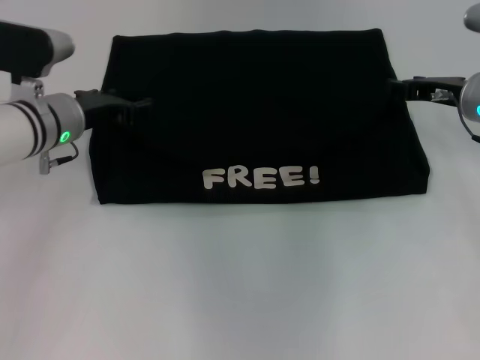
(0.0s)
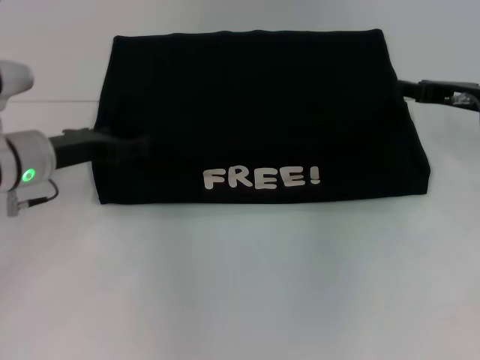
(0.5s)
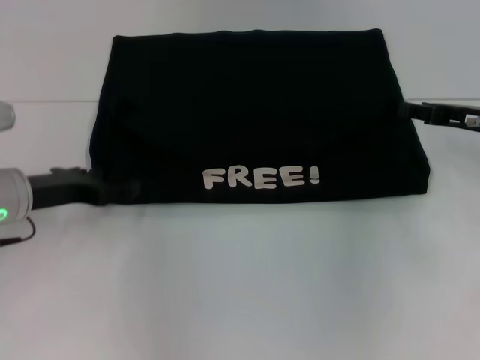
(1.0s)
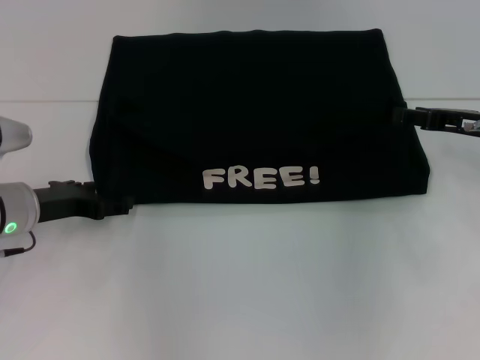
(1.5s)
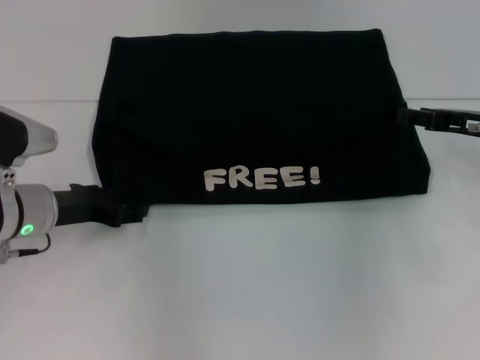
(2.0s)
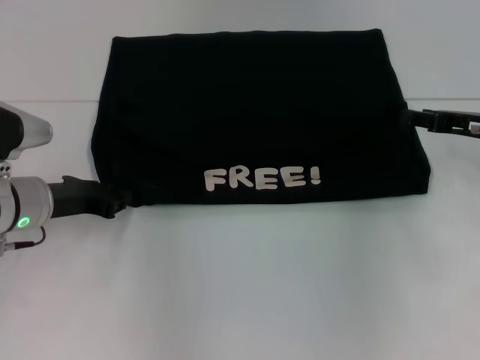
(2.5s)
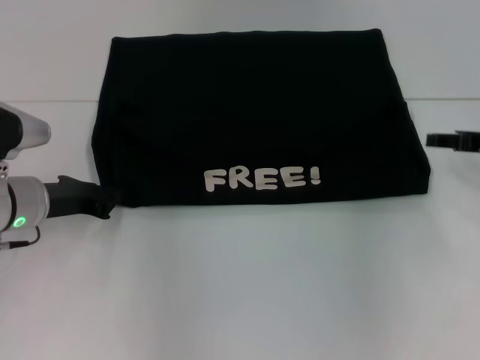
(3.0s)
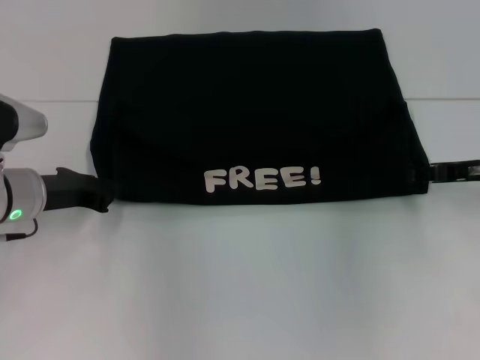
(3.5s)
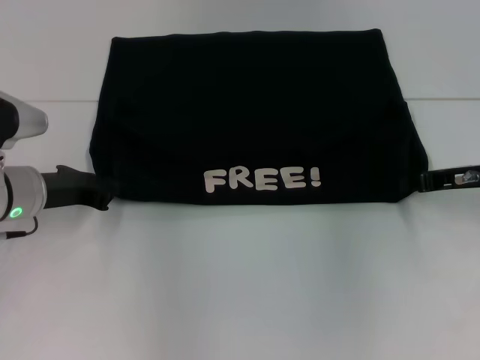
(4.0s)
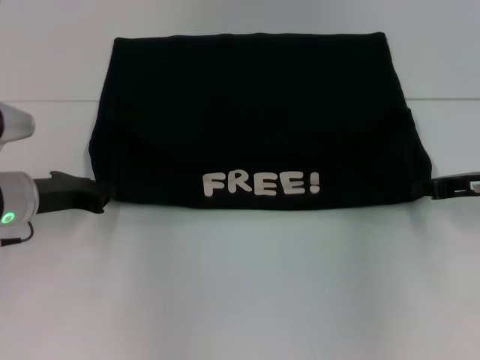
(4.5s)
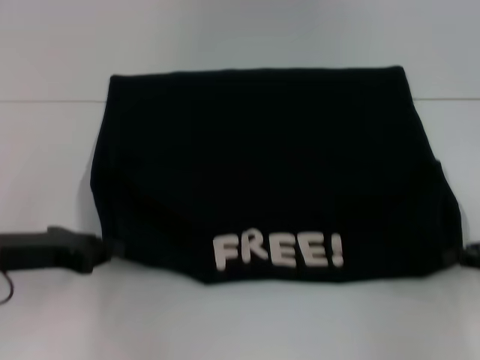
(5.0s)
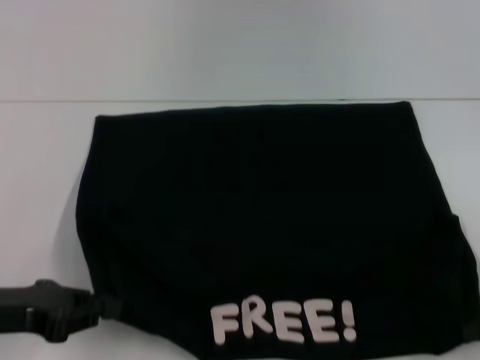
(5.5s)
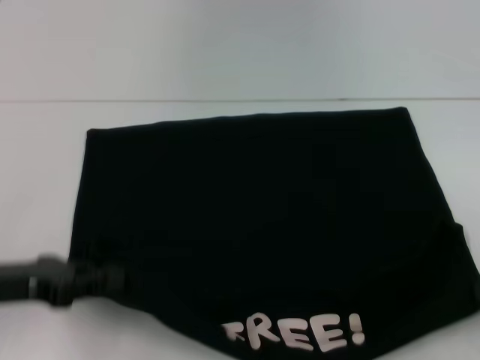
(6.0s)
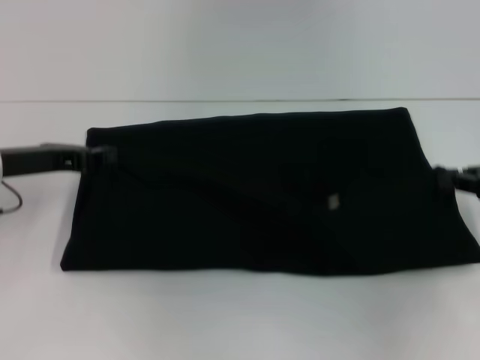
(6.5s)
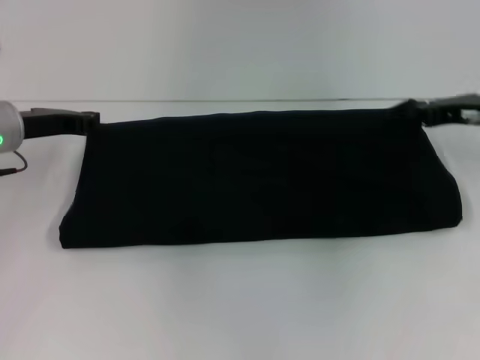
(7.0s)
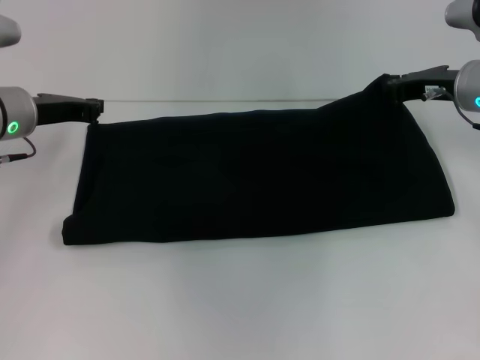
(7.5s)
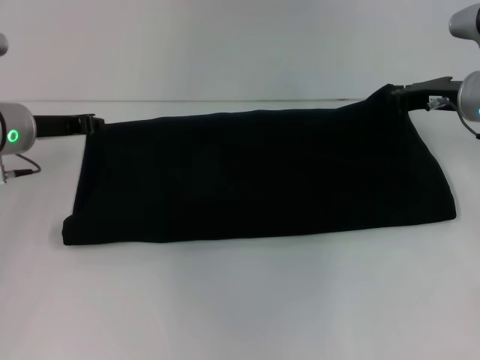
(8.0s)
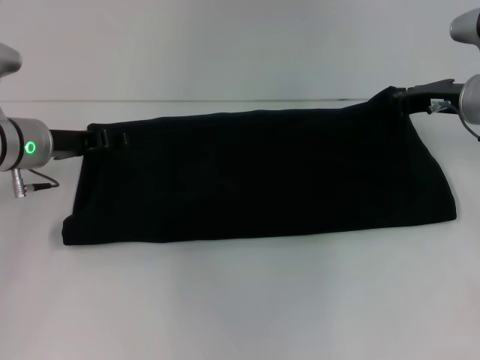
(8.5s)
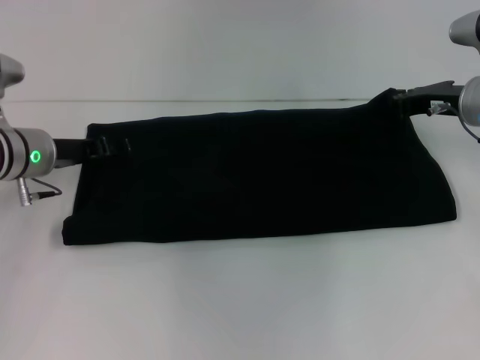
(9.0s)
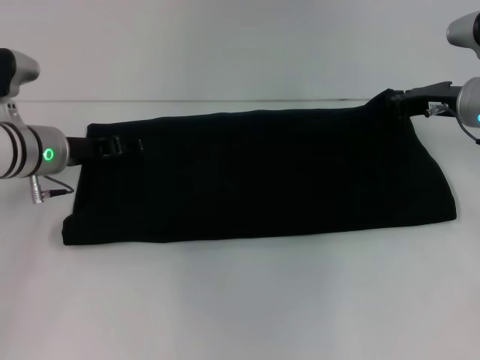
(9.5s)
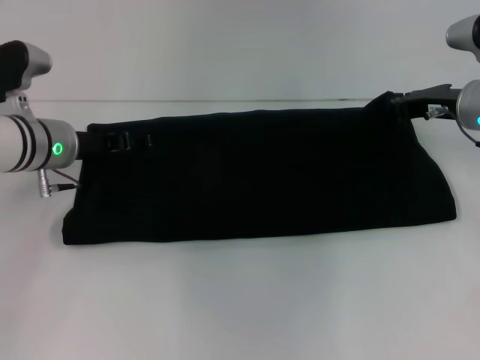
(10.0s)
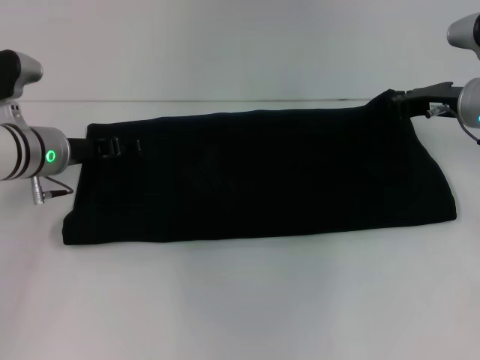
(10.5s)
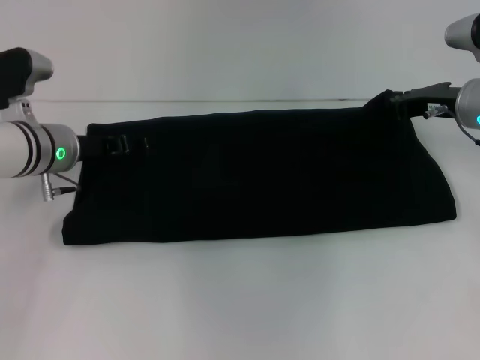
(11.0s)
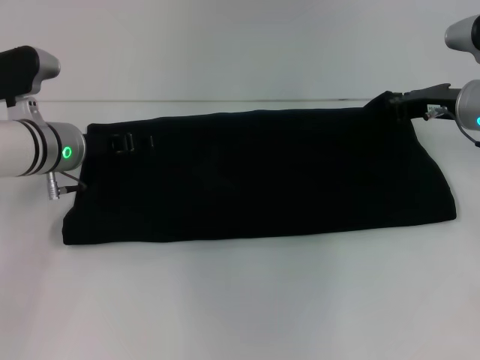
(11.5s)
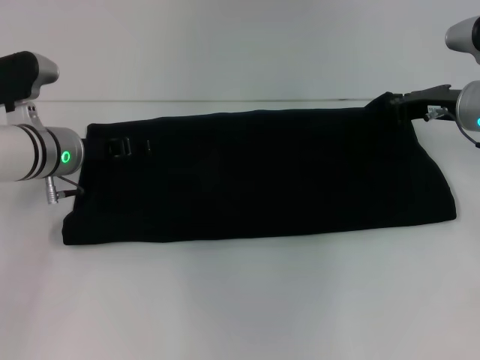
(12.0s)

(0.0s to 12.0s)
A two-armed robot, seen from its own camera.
Step, 0.5s - 5.5s: Pull the clothes with your left hand.
Step, 0.5s - 5.5s: Pull the clothes with your right hand.
0.0s - 2.0s: The left gripper is displaced backward by about 10 cm, and opens its fingers. Meanwhile the right gripper changes place by roughly 5 cm.
2.0s - 4.0s: The left gripper closes up.
4.0s - 6.0s: The right gripper moves backward and to the right, roughly 15 cm, and closes its fingers, while the left gripper goes about 10 cm backward.
6.0s - 8.0s: The right gripper moves forward and to the left, approximately 25 cm. The left gripper moves forward, about 20 cm.
8.0s - 10.0s: The left gripper opens.
10.0s - 12.0s: Neither gripper changes place.

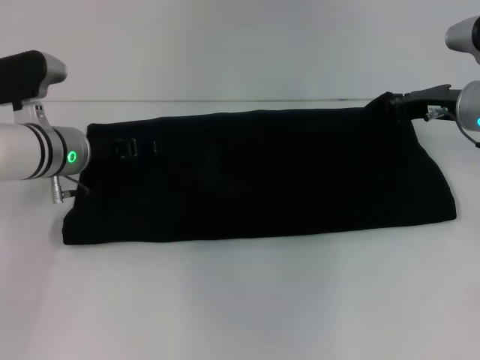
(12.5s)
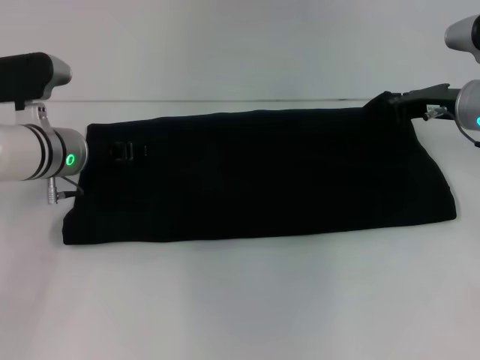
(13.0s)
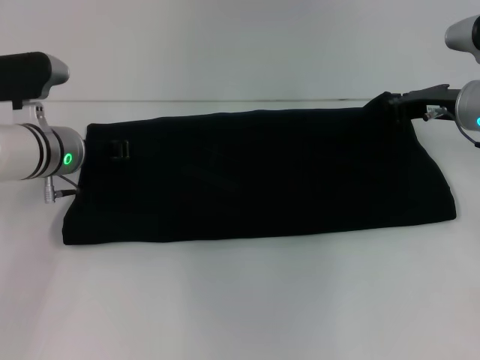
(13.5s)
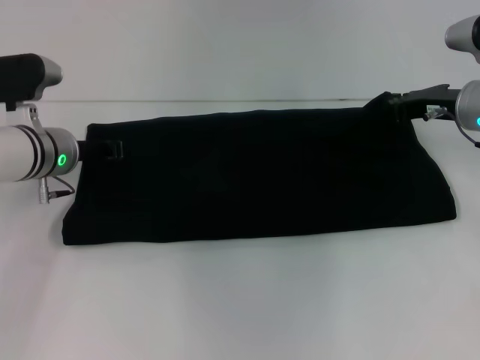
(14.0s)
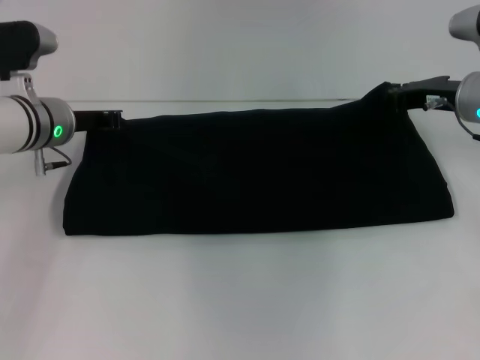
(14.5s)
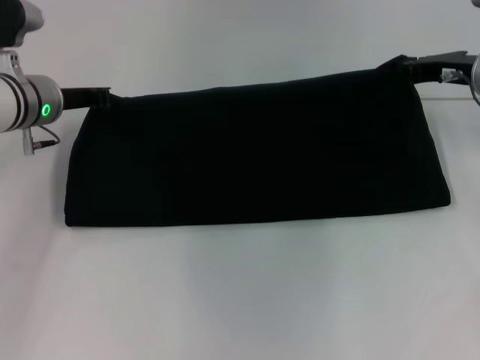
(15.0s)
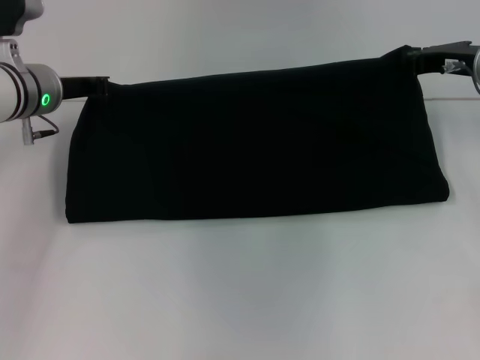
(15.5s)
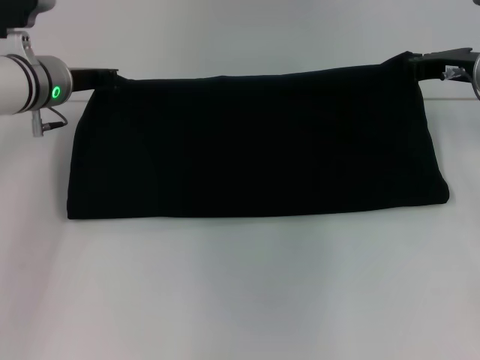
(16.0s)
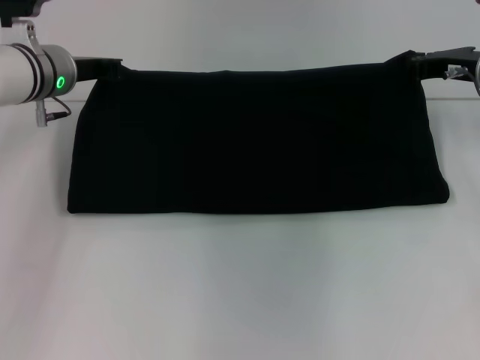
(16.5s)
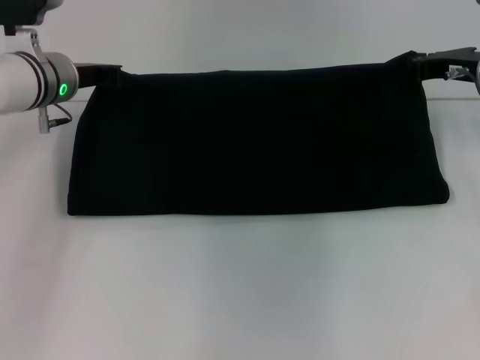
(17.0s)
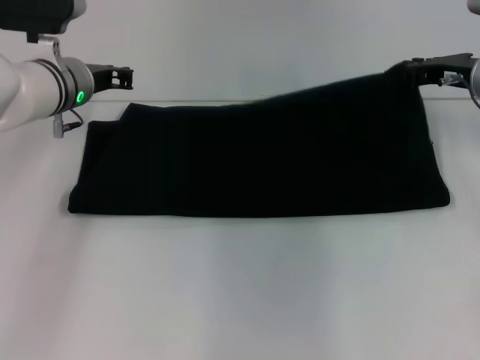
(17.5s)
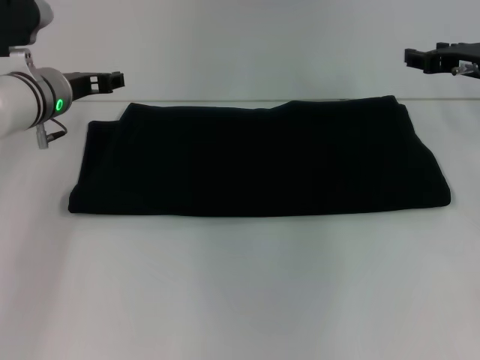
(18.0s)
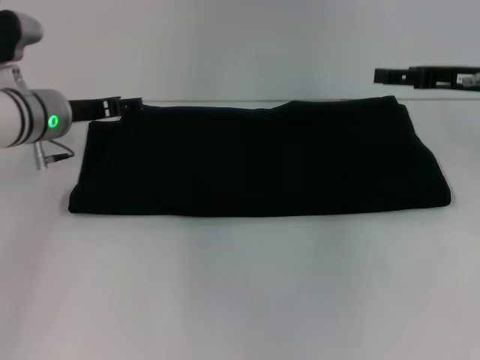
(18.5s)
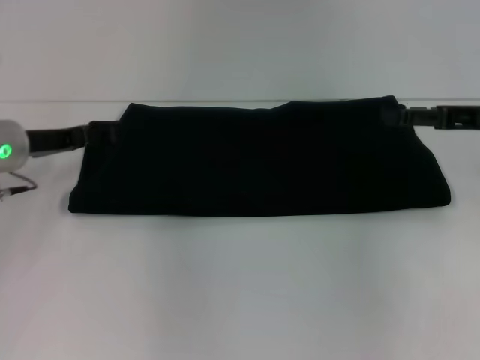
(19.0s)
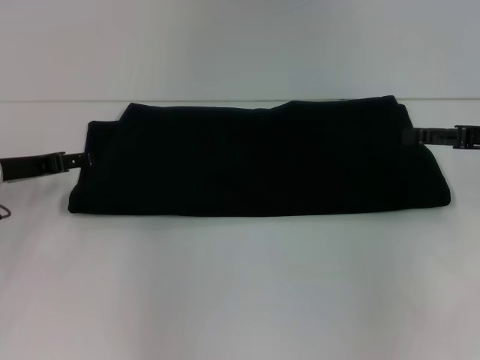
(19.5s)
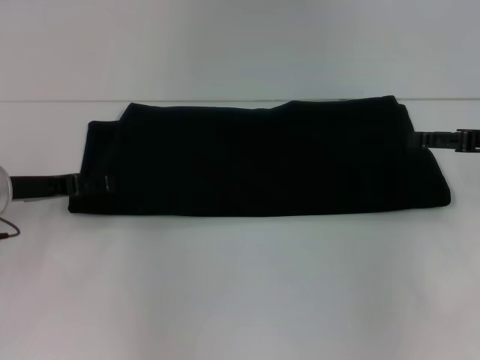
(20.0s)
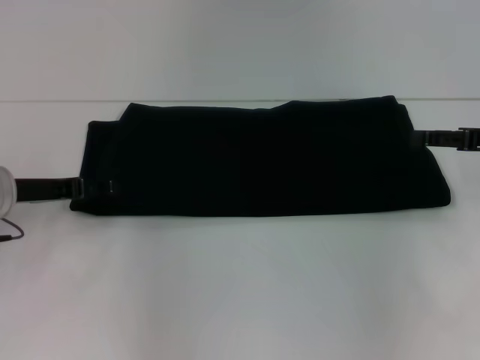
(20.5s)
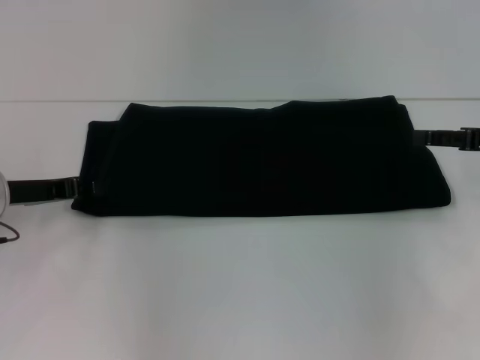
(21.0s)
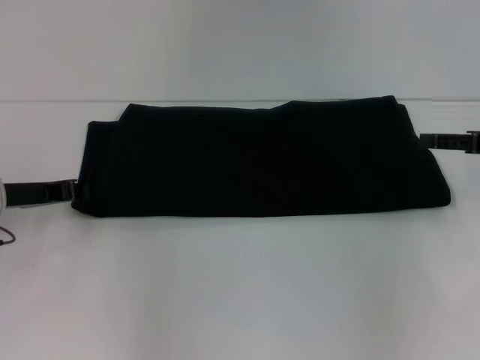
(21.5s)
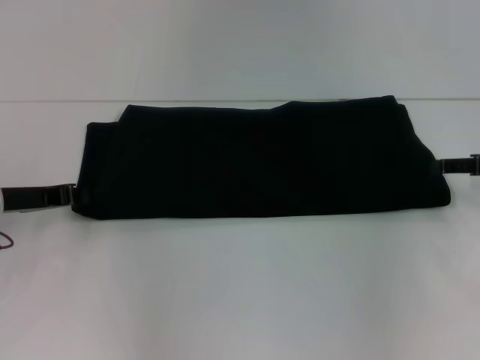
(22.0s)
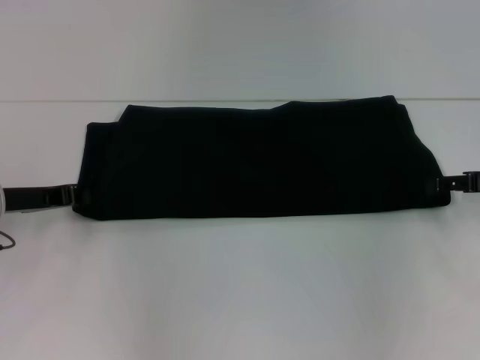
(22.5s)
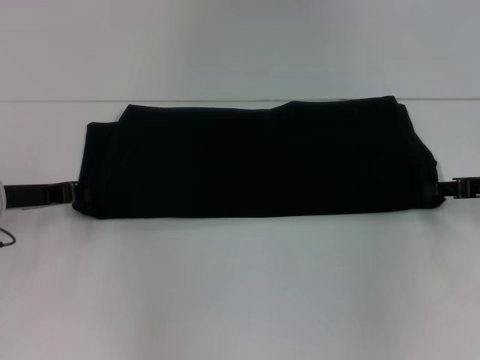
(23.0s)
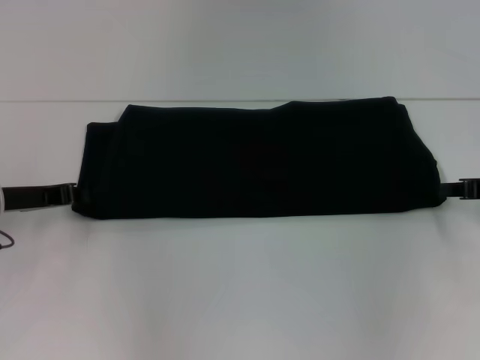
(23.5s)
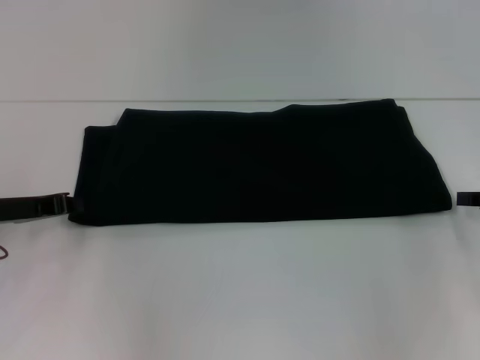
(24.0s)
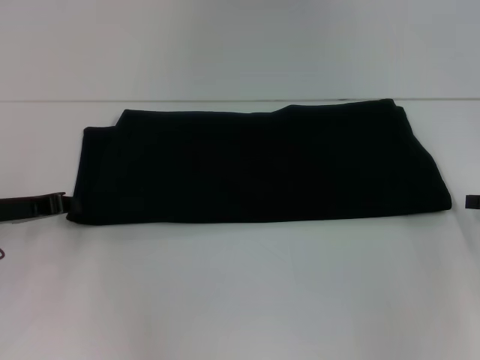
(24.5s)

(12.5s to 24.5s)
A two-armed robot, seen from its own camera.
Step, 12.5s - 17.5s: Fold the clothes with your right hand.
12.5s - 14.5s: The left gripper closes.
14.5s - 16.5s: The left gripper moves approximately 5 cm.
16.5s - 18.5s: The right gripper opens up; the left gripper opens its fingers.
18.5s - 20.5s: The right gripper heads backward, covering roughly 5 cm; the left gripper is displaced backward and to the left by some 10 cm.
20.5s - 22.5s: The left gripper closes.
22.5s - 24.5s: The right gripper closes.

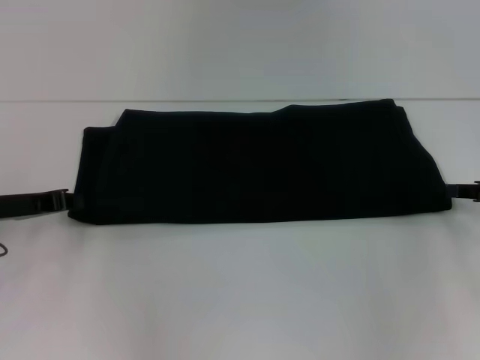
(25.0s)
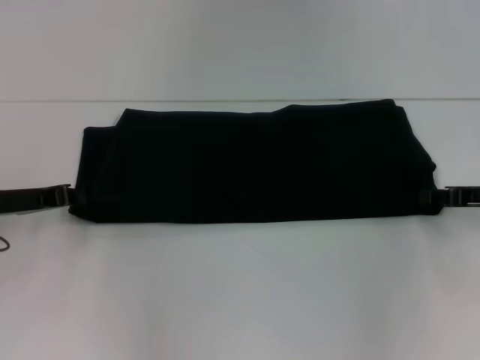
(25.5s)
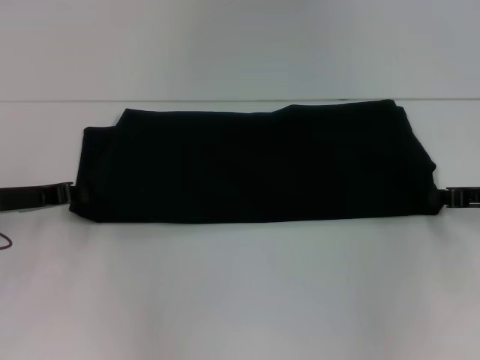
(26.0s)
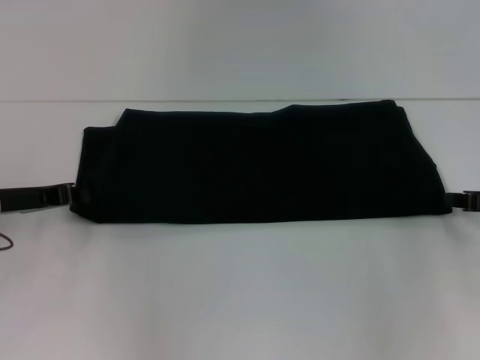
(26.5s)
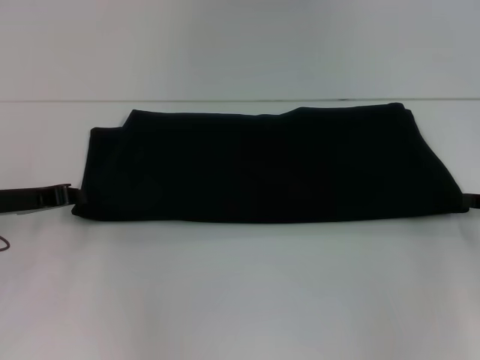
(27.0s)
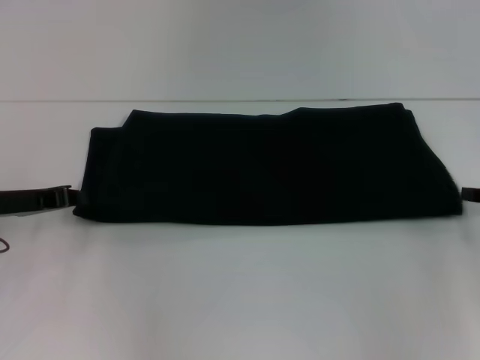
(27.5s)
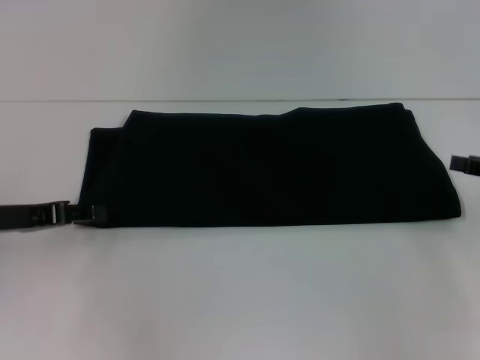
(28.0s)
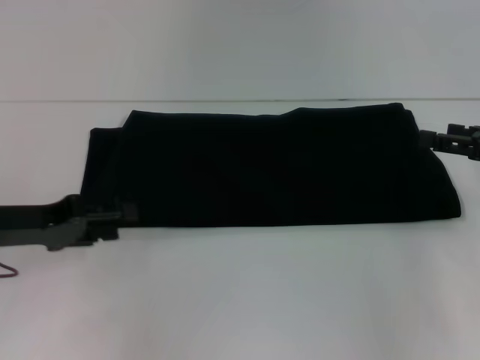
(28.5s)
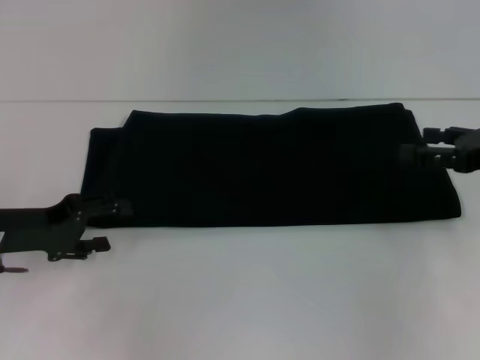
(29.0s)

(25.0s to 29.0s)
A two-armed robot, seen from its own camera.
25.0s - 27.0s: There are only small adjustments of the grippers.
27.0s - 29.0s: The left gripper opens its fingers. The right gripper is displaced upward by about 5 cm, and opens its fingers.
